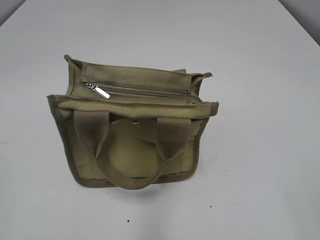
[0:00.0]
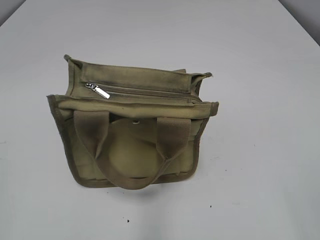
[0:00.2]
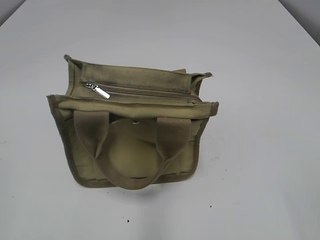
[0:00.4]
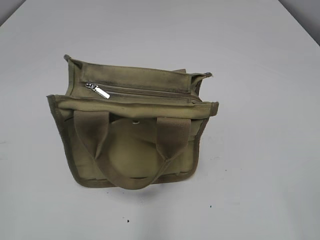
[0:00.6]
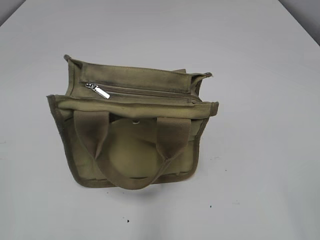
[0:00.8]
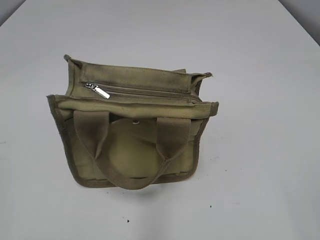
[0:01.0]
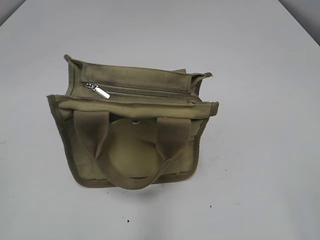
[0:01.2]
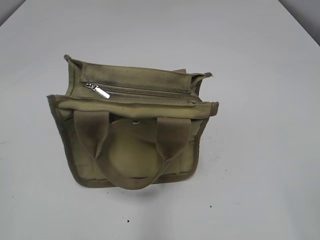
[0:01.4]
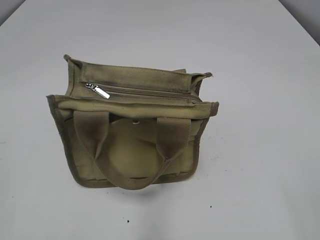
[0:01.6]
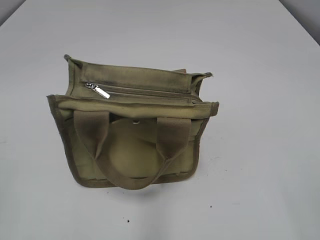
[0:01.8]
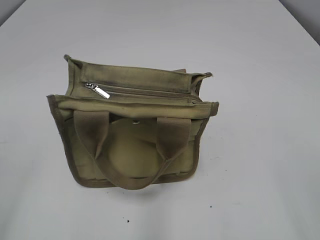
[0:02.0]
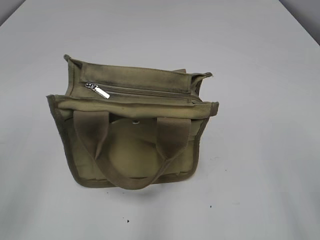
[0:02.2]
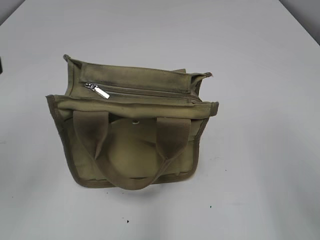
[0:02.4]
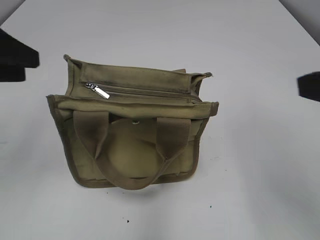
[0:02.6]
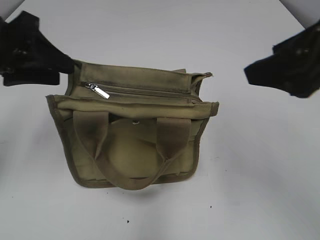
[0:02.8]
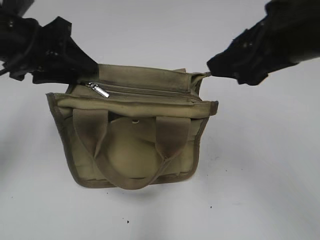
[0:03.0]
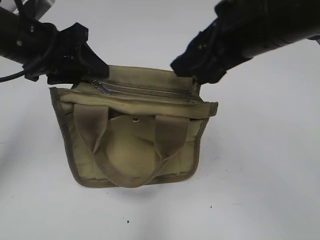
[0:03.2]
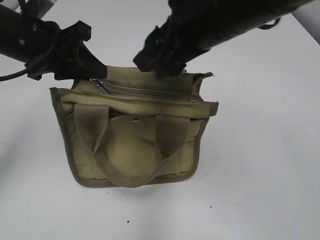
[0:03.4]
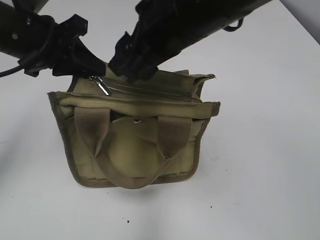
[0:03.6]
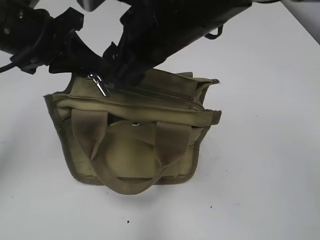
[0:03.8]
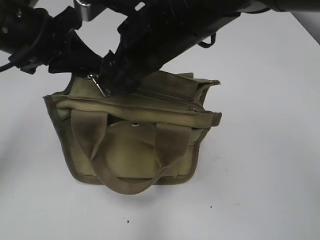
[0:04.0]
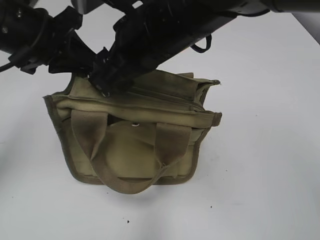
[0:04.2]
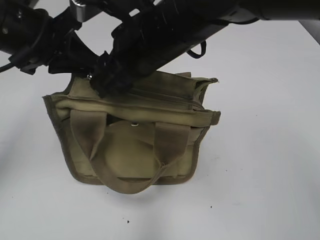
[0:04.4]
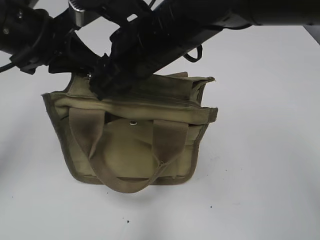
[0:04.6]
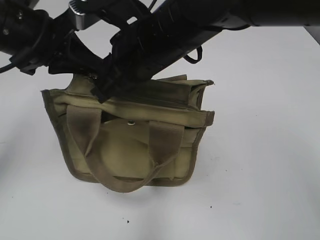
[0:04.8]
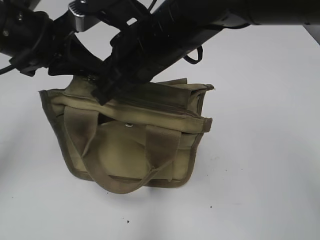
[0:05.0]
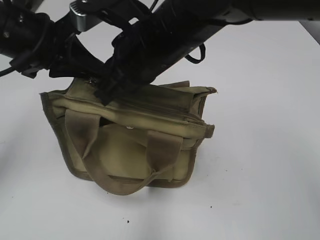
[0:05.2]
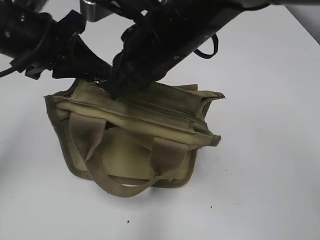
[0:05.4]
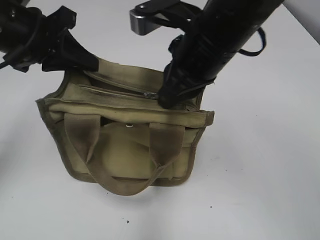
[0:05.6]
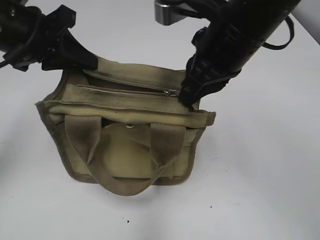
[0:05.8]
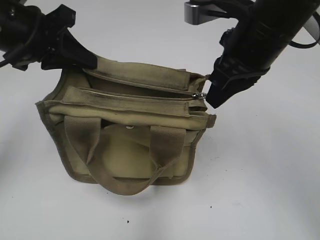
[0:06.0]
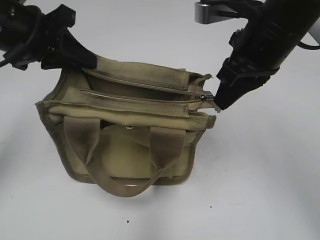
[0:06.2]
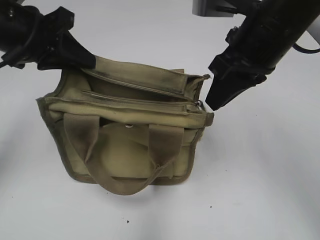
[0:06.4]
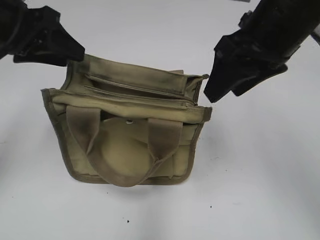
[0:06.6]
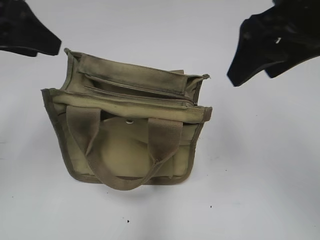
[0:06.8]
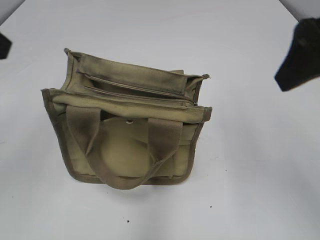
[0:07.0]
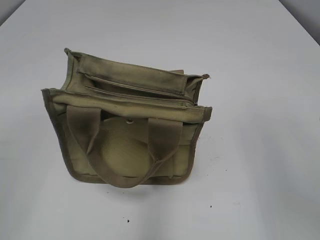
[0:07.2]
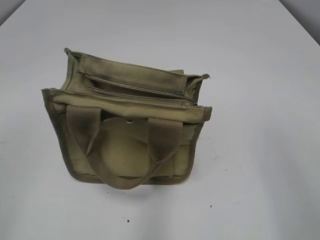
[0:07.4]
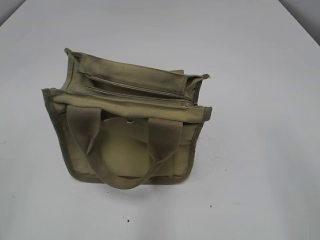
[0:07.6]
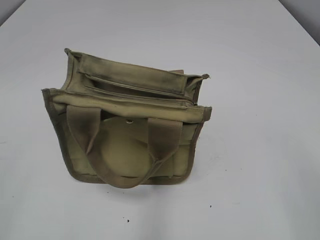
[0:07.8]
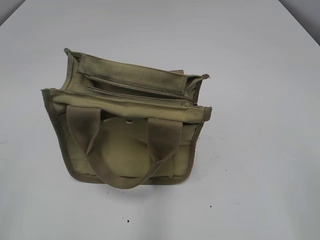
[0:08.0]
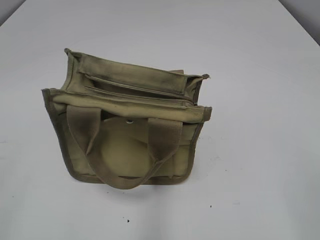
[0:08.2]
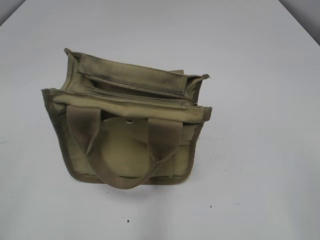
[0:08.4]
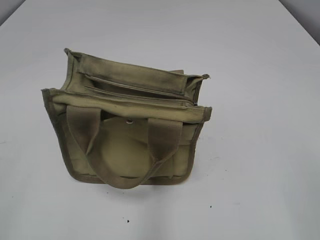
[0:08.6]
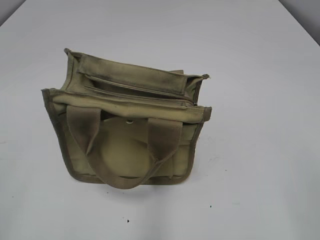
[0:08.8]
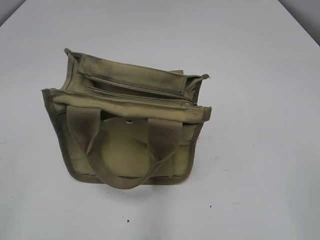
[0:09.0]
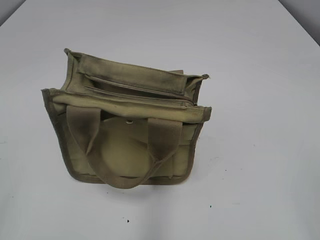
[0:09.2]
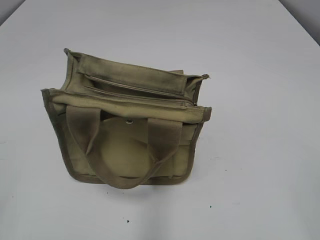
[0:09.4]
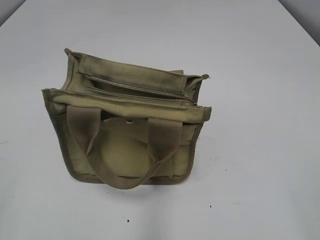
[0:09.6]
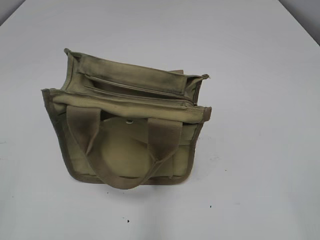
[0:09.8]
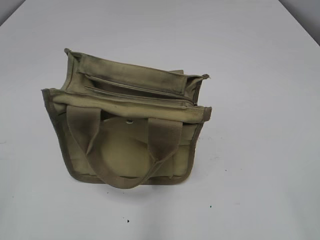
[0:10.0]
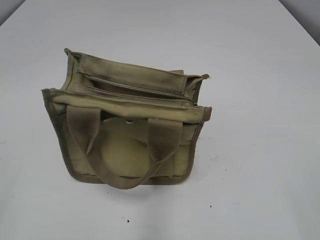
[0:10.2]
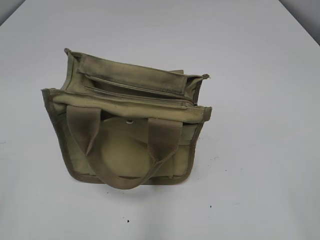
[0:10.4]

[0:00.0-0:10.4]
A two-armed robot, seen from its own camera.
Step, 0:00.0 to 0:06.2: Pull open the zipper with your right hand.
0:01.4 to 0:03.0: The right gripper goes about 25 cm forward and to the left. Meanwhile the left gripper travels forward by some 30 cm.
0:03.0 to 0:04.4: The right gripper heads to the left, covering roughly 15 cm, while the left gripper closes up.
0:04.4 to 0:06.0: The right gripper moves to the right, about 10 cm, and closes.
0:06.0 to 0:07.4: The left gripper is displaced backward and to the left by some 25 cm, and opens; the right gripper shifts approximately 25 cm backward and to the right, and opens up.

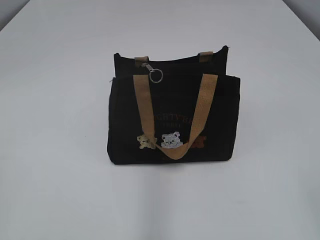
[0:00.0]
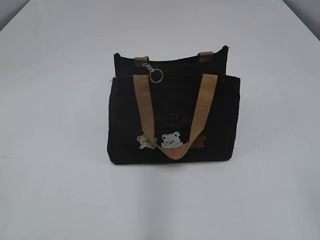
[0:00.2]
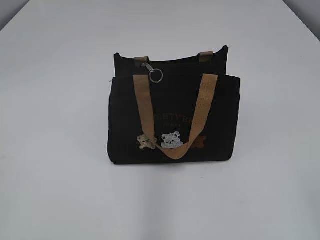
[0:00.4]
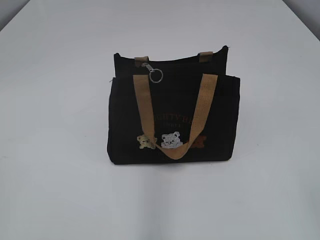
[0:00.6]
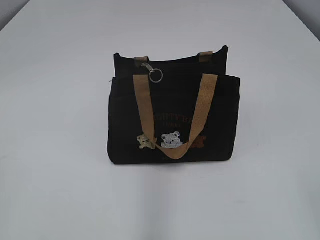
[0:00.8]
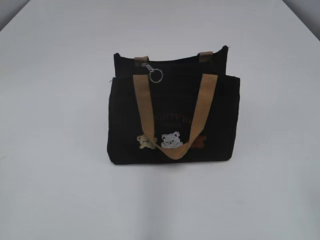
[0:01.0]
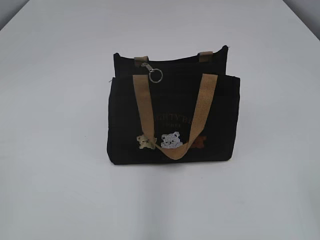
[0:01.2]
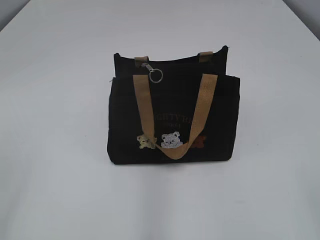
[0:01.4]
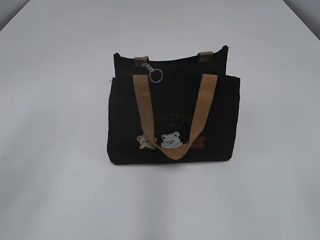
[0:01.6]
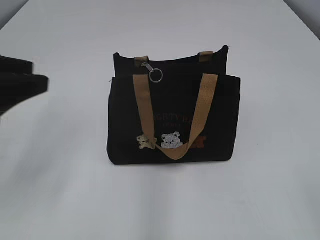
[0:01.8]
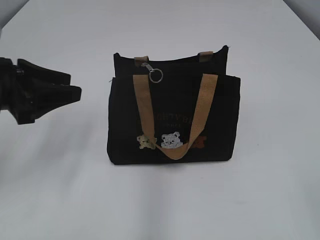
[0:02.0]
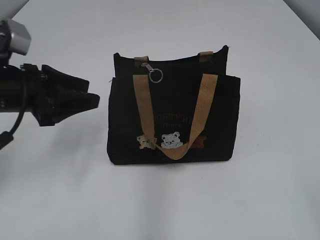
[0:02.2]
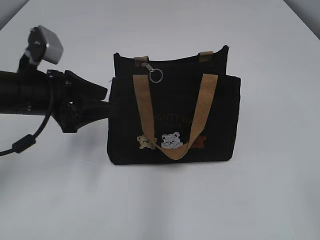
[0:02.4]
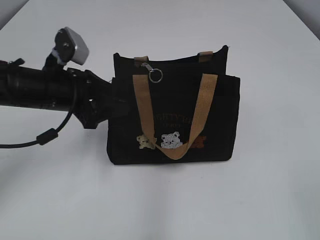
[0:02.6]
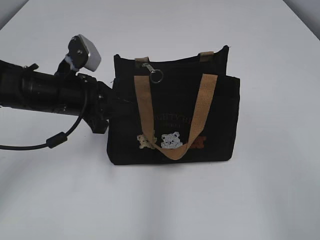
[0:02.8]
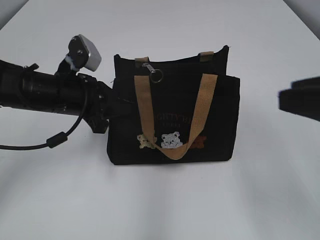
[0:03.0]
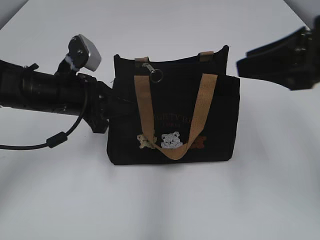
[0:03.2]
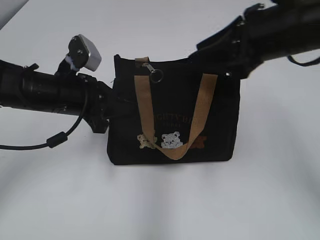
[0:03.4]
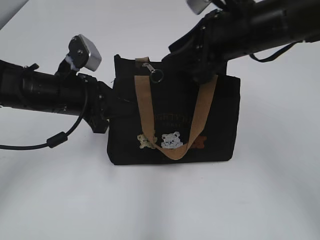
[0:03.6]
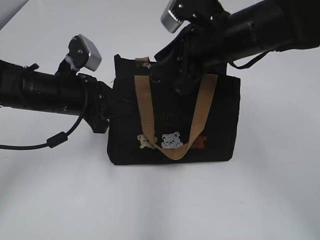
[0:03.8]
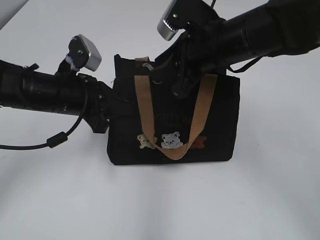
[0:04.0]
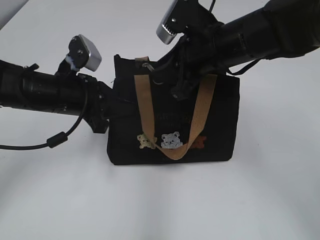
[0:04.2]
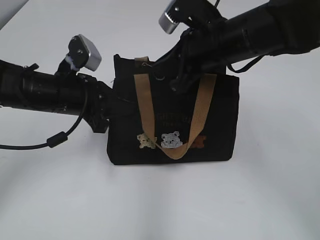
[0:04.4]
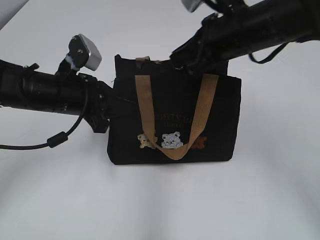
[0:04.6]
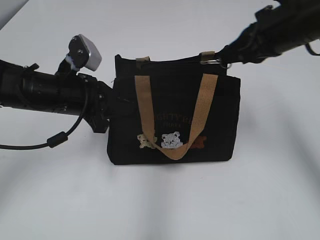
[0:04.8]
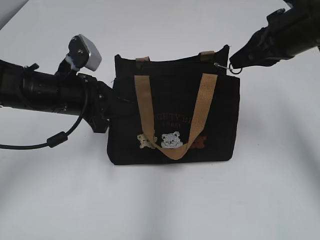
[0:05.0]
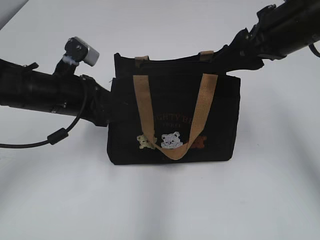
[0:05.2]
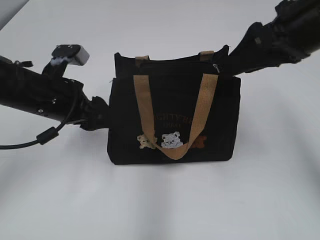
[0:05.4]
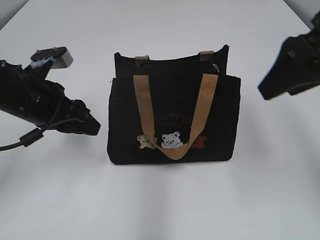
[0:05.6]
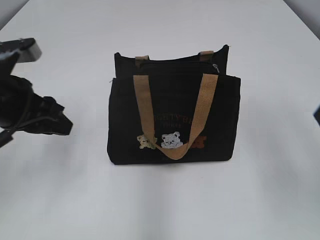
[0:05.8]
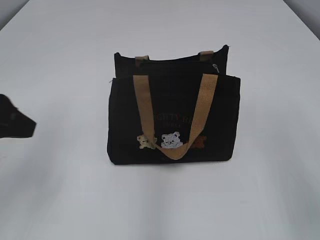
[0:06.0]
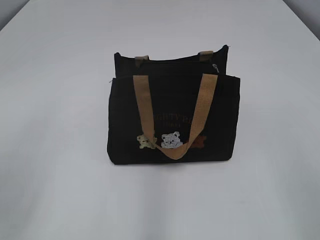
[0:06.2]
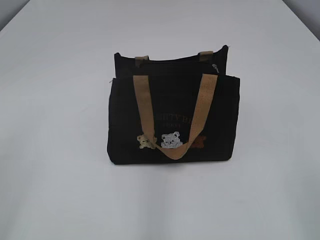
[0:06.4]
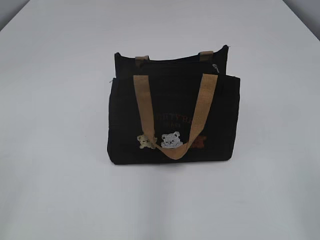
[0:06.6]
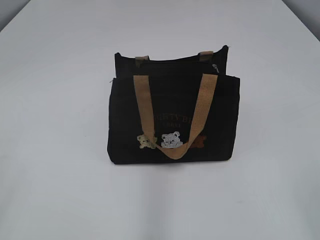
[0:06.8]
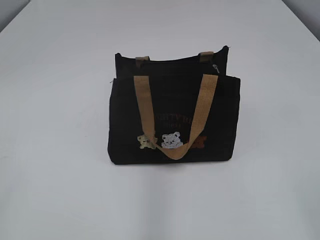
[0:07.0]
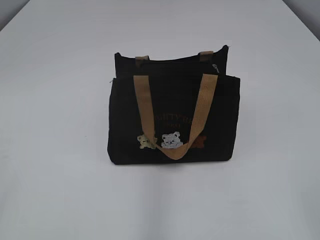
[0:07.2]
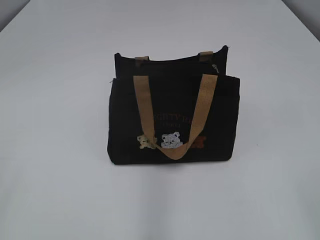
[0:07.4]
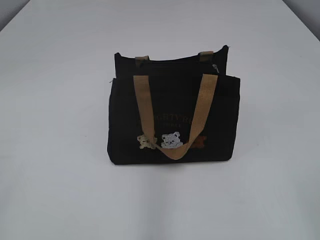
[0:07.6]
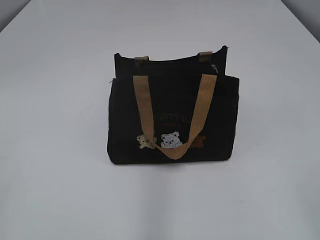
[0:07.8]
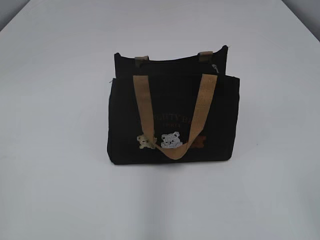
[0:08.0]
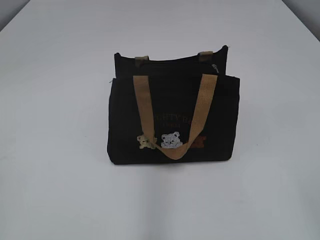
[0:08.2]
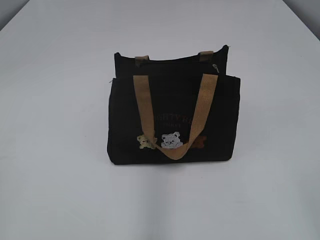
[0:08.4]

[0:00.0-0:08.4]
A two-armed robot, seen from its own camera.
Step, 0:00.0 to 0:05.0: Zip up the bag with your right hand.
Step, 0:05.2 to 0:05.4: Hold the bag with your left hand.
0:01.4 to 0:02.8: The right gripper moves forward, about 5 cm, while the left gripper travels forward, downward and to the right by approximately 35 cm, and closes up.
0:02.8 to 0:04.2: The right gripper is displaced forward and to the left by some 30 cm.
0:04.2 to 0:05.6: The right gripper moves to the right, upward and backward, roughly 15 cm, and opens; the left gripper opens up.
0:05.6 to 0:07.0: The left gripper heads backward and to the left, covering some 30 cm. Meanwhile the right gripper shifts approximately 25 cm backward.

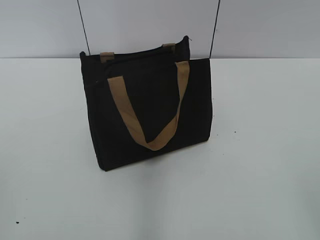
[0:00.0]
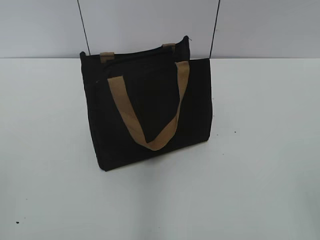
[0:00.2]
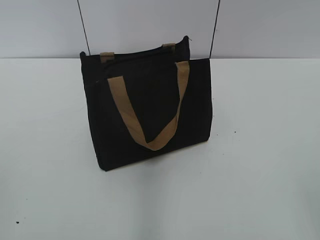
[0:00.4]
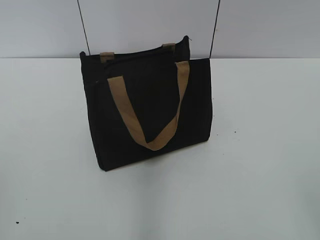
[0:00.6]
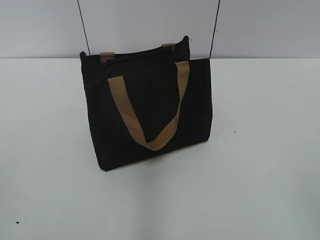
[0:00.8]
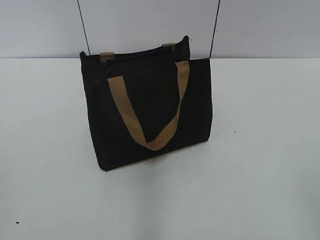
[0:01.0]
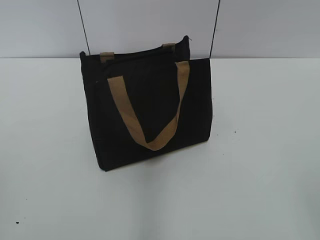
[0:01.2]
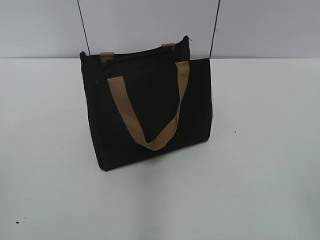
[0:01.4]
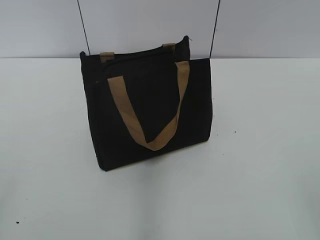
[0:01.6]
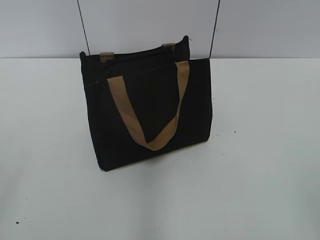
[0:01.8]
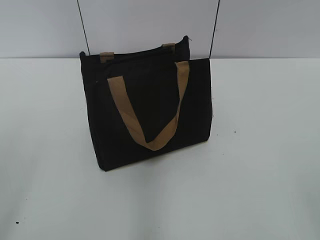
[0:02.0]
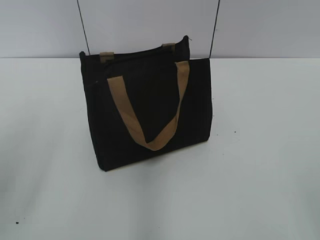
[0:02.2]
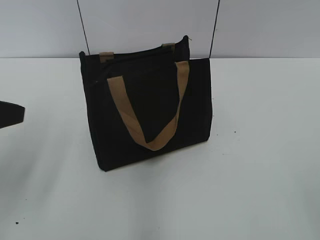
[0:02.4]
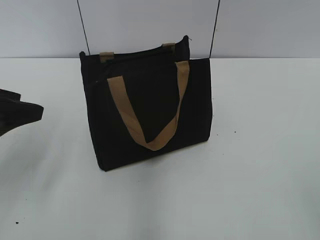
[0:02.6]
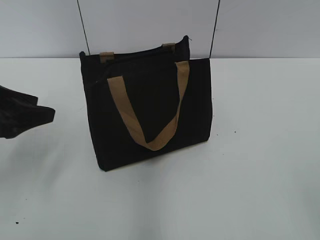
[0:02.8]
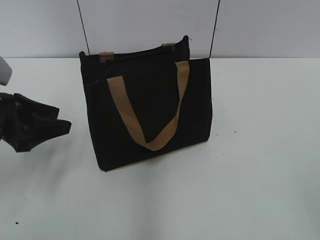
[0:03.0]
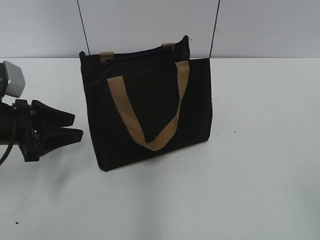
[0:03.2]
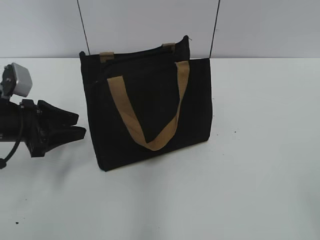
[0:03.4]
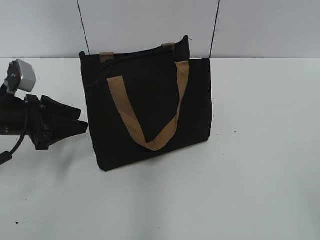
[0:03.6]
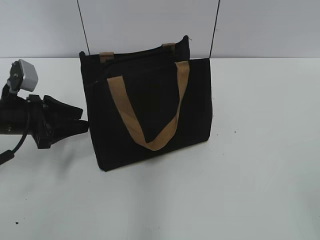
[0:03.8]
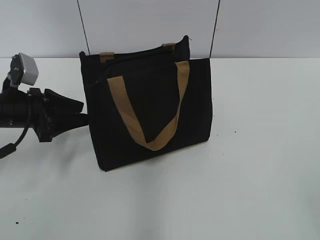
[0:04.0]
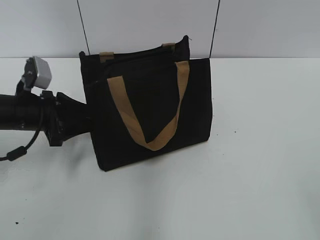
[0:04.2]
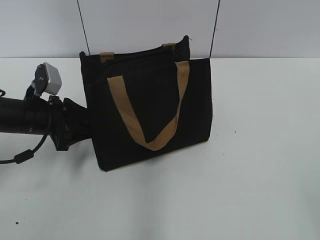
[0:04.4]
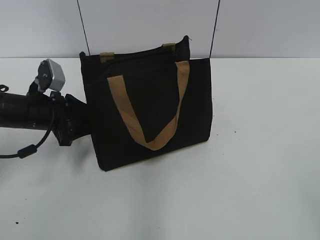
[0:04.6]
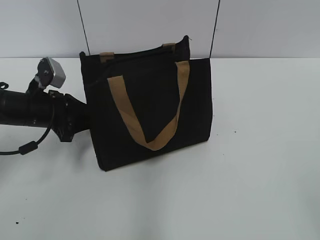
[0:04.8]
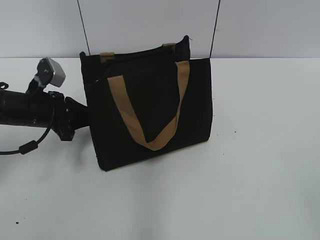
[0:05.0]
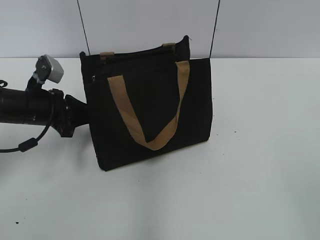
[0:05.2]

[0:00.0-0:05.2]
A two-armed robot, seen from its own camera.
0:01.8 to 0:03.4: The left gripper moves forward and downward, approximately 30 cm.
0:03.4 to 0:05.2: The left gripper changes place by approximately 5 cm, and closes up.
